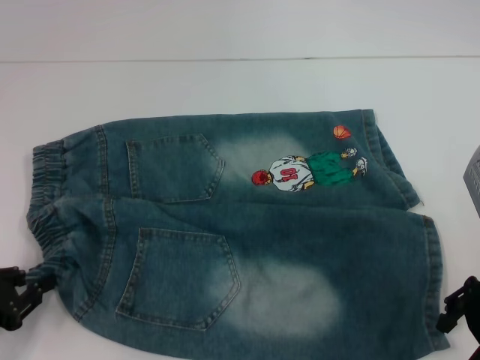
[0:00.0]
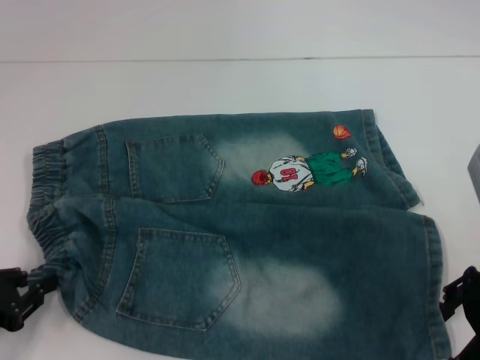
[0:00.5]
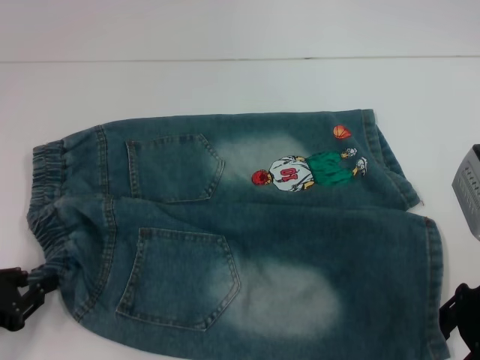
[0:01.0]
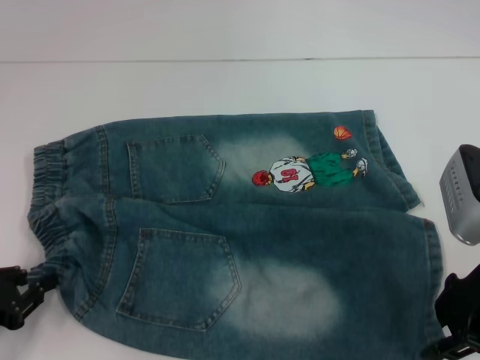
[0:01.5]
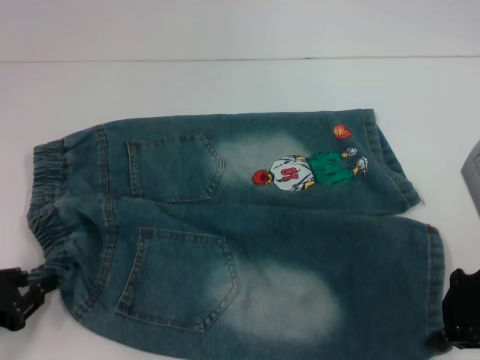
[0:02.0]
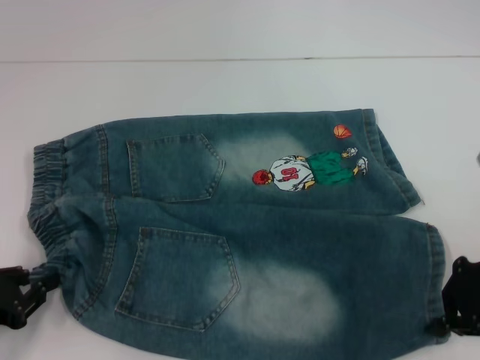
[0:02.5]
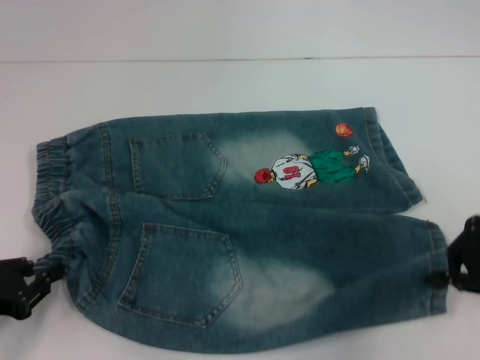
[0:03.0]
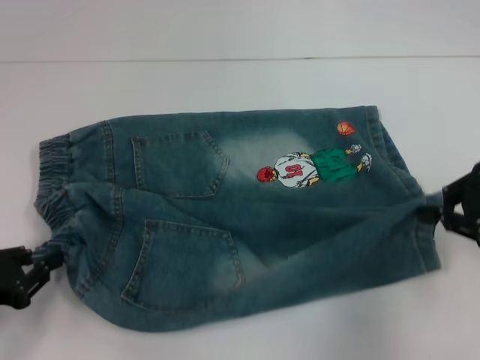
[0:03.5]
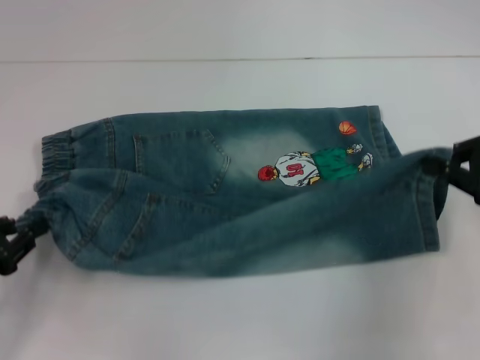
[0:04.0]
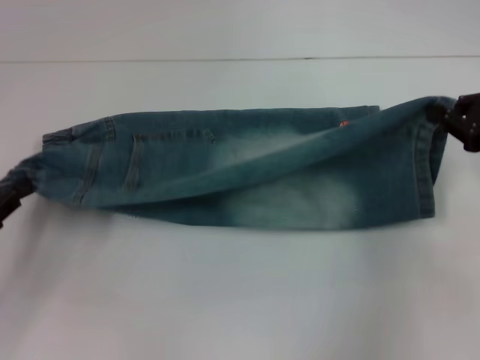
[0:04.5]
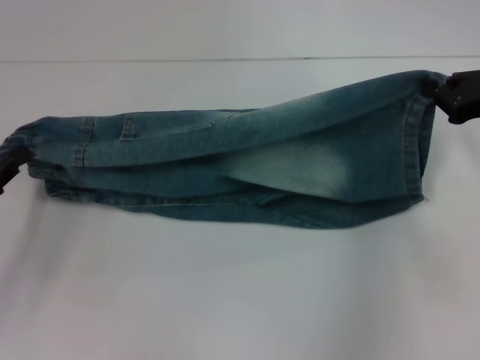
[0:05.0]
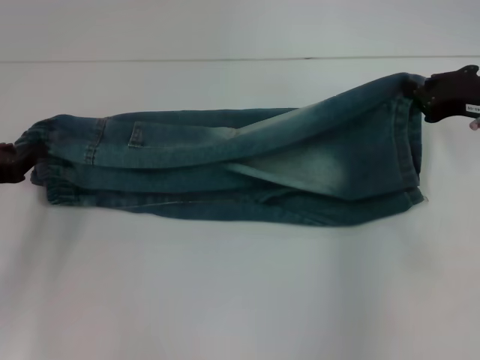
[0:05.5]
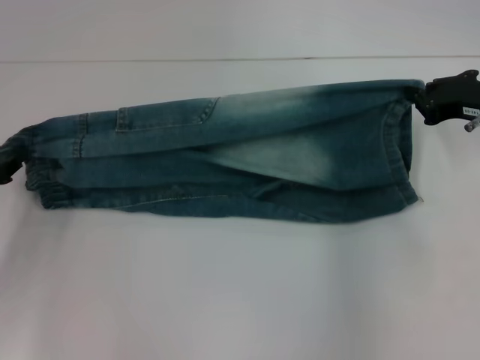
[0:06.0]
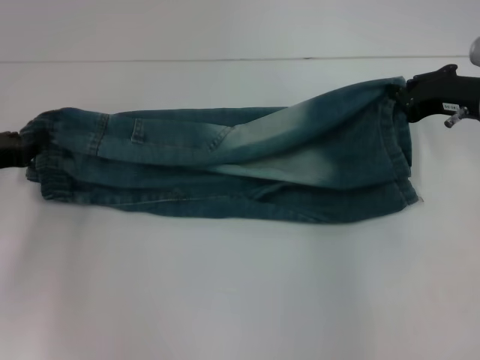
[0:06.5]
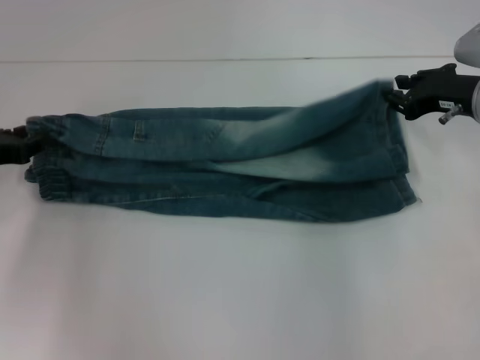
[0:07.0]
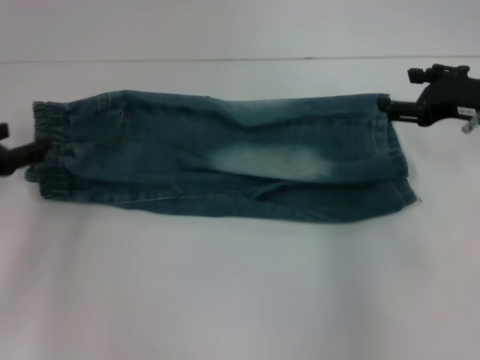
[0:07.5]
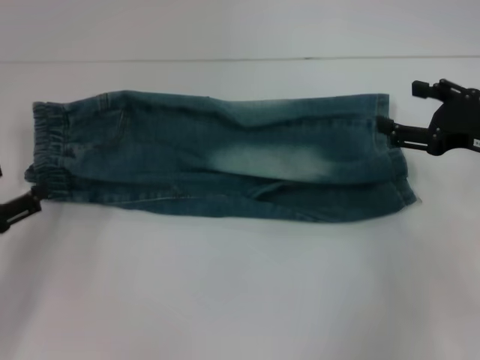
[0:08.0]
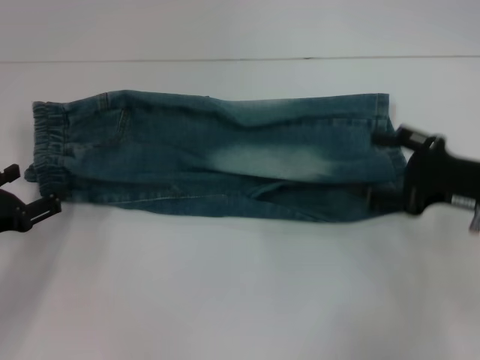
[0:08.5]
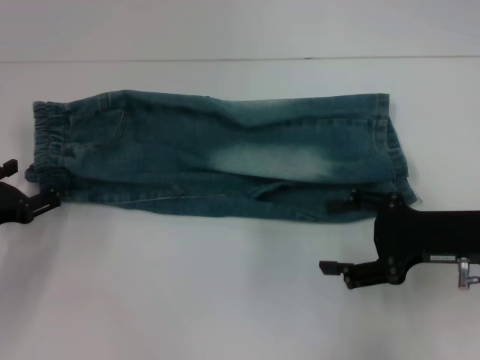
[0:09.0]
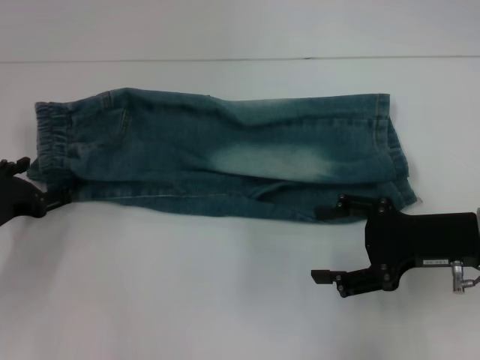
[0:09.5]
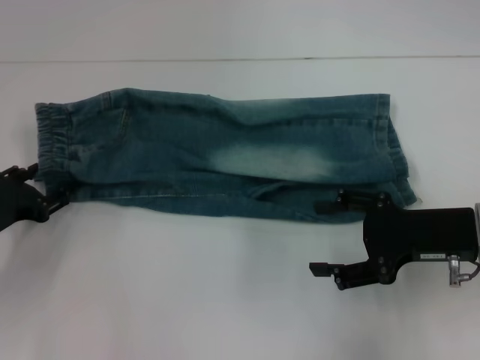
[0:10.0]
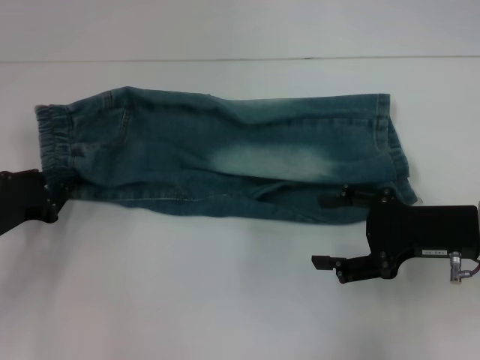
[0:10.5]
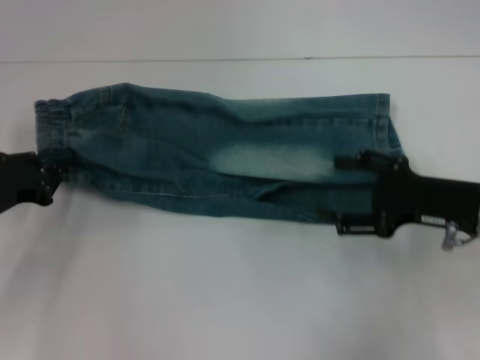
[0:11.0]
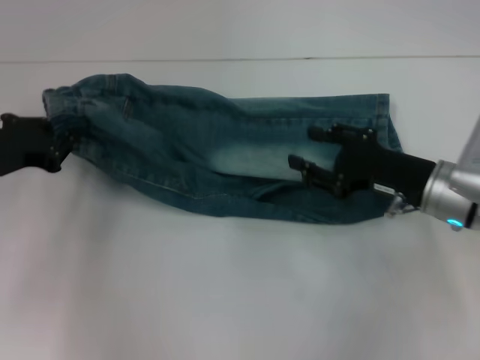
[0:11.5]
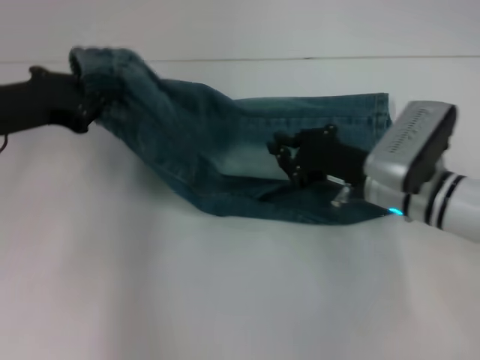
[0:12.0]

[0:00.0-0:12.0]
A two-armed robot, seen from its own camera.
Step, 0:00.0 to 0:02.0: Grab the lower right pant leg with your right hand.
Step, 0:02.5 to 0:07.0: Fold upward with your right hand.
Step, 0:07.5 to 0:10.5: Hold the waistband with your left hand.
0:00.0 to 0:02.0: The right gripper closes.
0:02.0 to 0:04.0: The right gripper goes some 5 cm to the right.
0:04.0 to 0:06.0: Both grippers move forward, approximately 10 cm.
0:06.0 to 0:08.0: The grippers both shift backward by approximately 5 cm. The right gripper opens its fingers, while the left gripper opens its fingers.
0:08.0 to 0:10.0: The left gripper shifts some 5 cm forward; the right gripper travels to the left by about 5 cm.
0:10.0 to 0:12.0: The left gripper travels upward by about 15 cm, and closes up; the right gripper shifts about 10 cm to the left and forward, and closes its fingers.

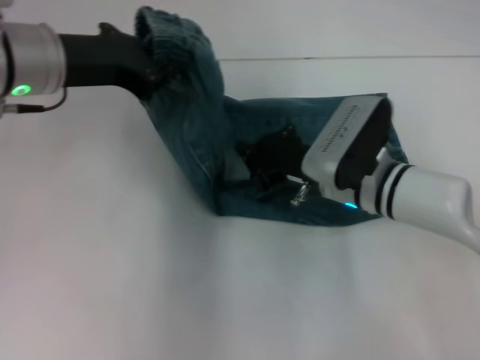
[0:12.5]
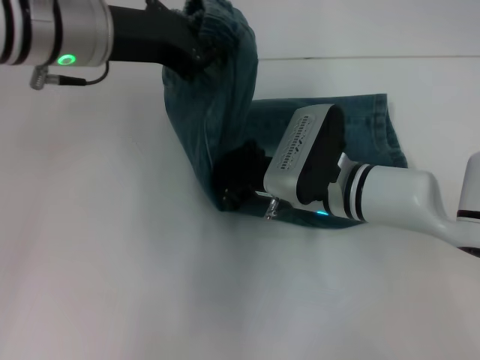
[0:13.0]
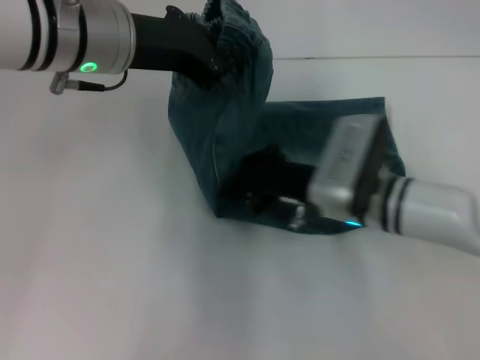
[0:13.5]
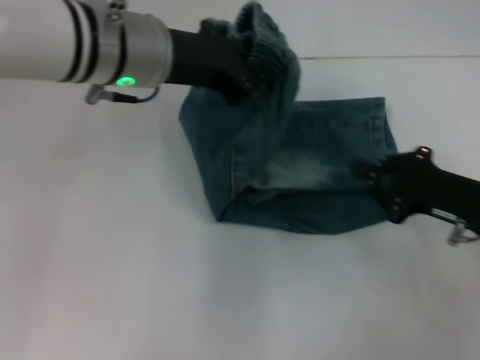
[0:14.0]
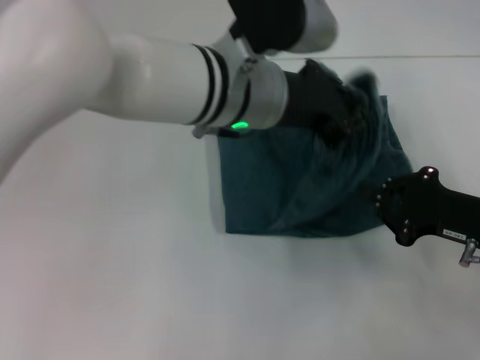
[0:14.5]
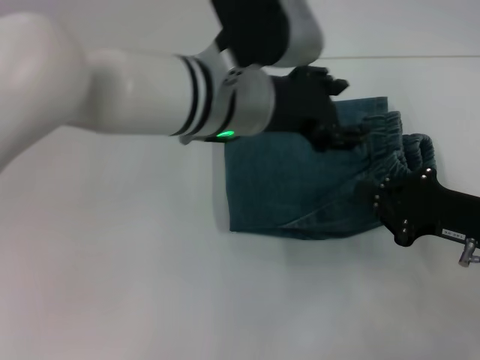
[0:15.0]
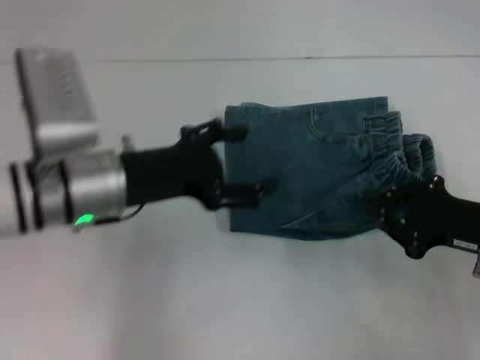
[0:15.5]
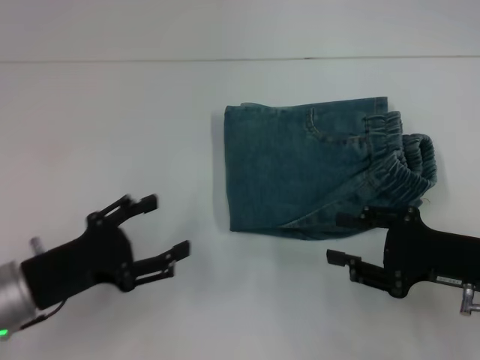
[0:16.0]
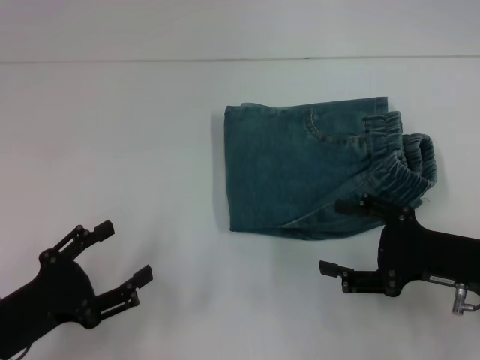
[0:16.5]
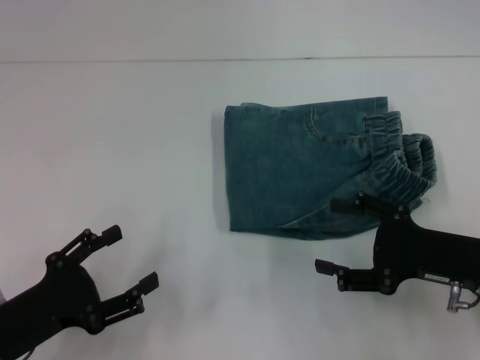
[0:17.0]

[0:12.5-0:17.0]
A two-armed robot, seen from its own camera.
Step, 0:13.5 to 0:14.5: Fold to the right with your left hand.
0:12.5 to 0:14.5: The left gripper moves to the right, some 15 cm. The right gripper shifts some 15 cm to the right and backward.
0:14.5 to 0:17.0: The right gripper opens, while the left gripper travels to the left, backward and downward by approximately 35 cm, and opens its fingers.
